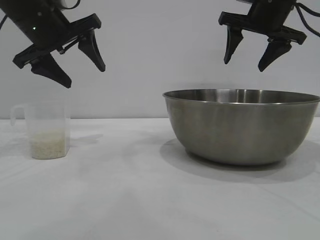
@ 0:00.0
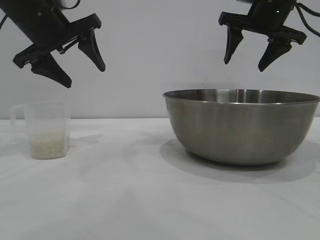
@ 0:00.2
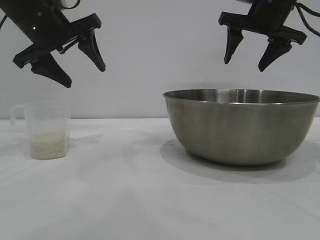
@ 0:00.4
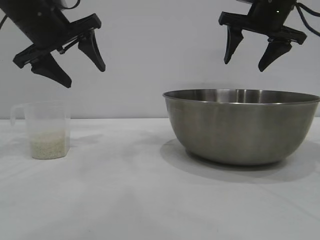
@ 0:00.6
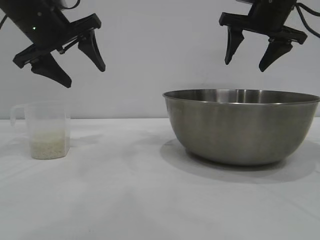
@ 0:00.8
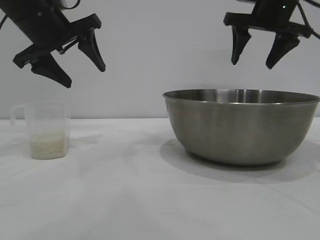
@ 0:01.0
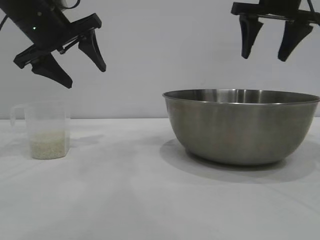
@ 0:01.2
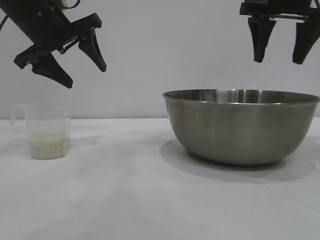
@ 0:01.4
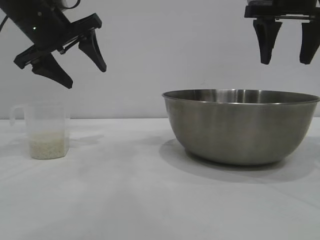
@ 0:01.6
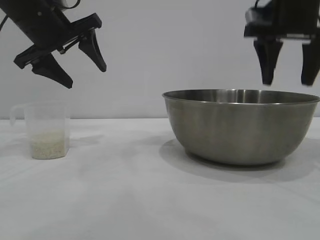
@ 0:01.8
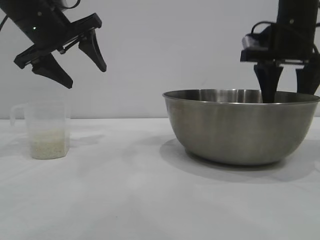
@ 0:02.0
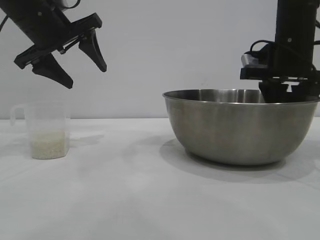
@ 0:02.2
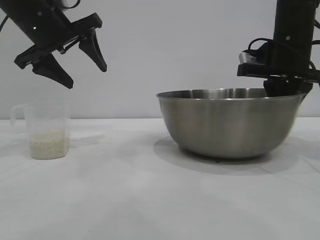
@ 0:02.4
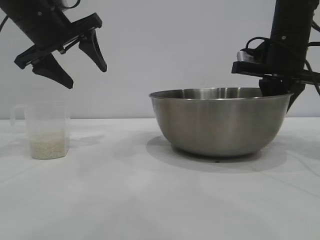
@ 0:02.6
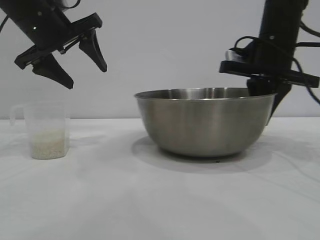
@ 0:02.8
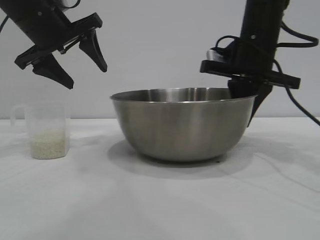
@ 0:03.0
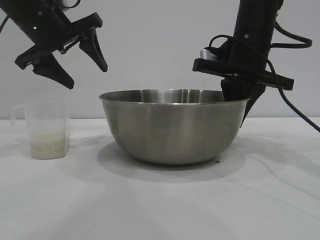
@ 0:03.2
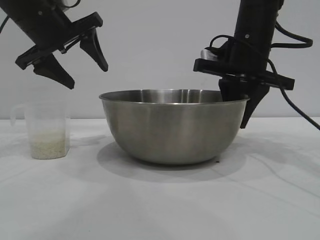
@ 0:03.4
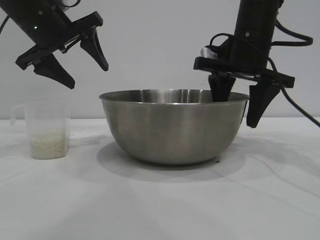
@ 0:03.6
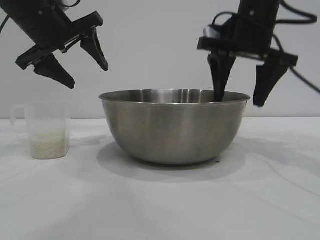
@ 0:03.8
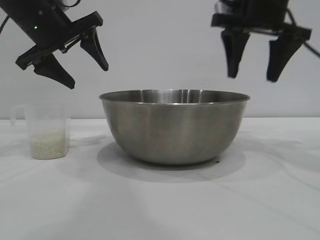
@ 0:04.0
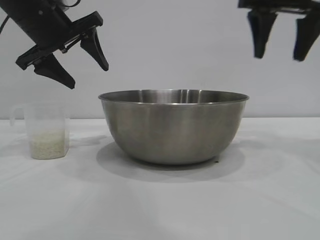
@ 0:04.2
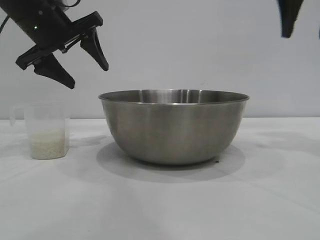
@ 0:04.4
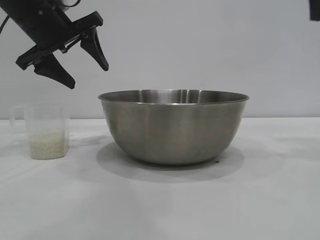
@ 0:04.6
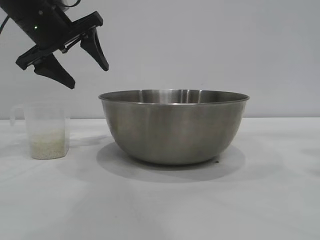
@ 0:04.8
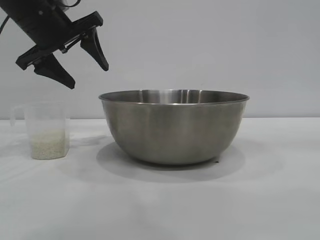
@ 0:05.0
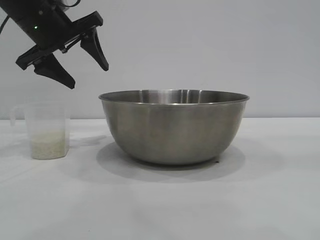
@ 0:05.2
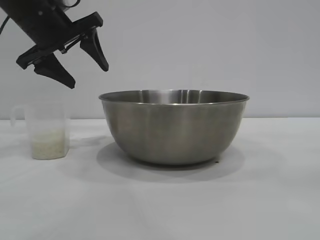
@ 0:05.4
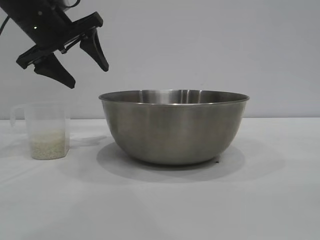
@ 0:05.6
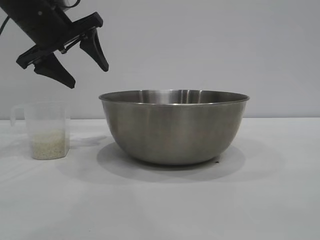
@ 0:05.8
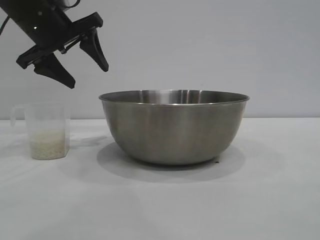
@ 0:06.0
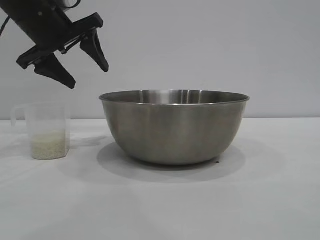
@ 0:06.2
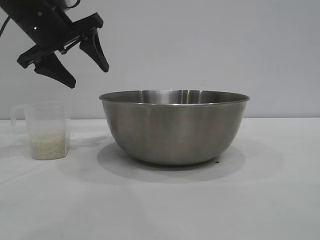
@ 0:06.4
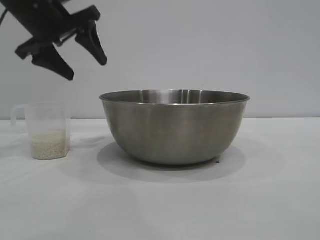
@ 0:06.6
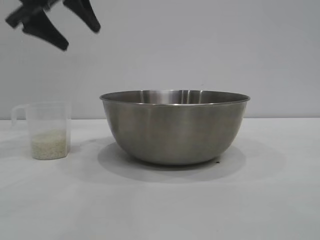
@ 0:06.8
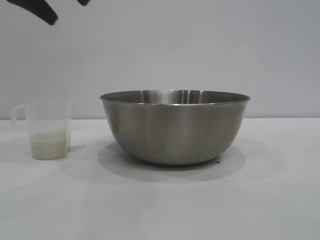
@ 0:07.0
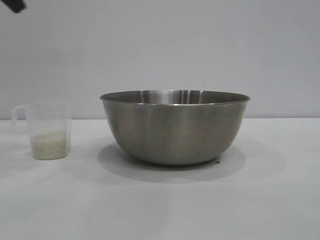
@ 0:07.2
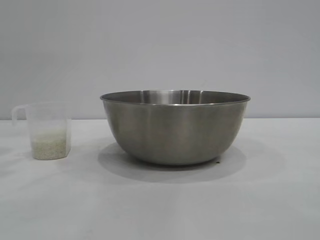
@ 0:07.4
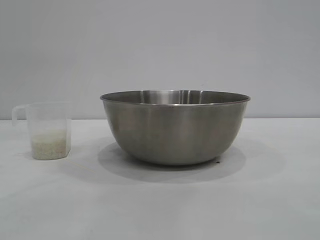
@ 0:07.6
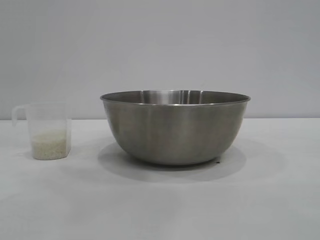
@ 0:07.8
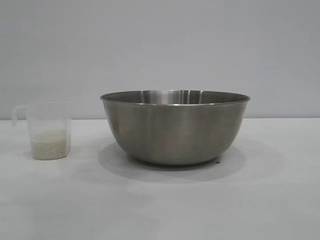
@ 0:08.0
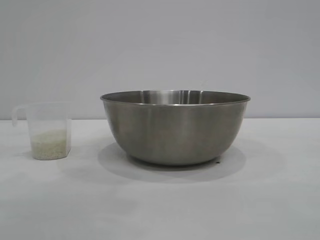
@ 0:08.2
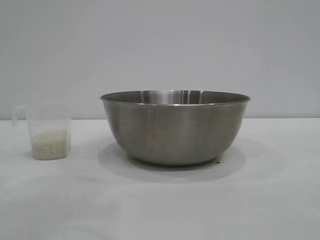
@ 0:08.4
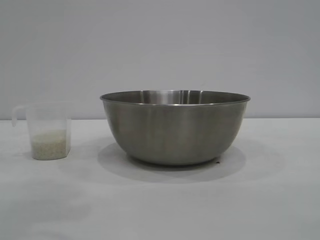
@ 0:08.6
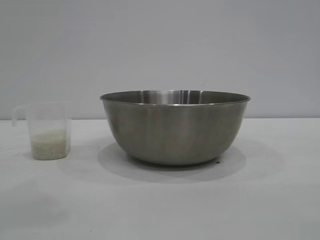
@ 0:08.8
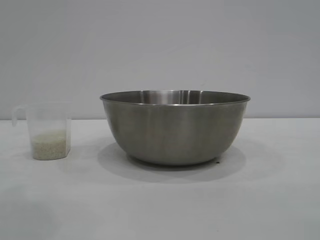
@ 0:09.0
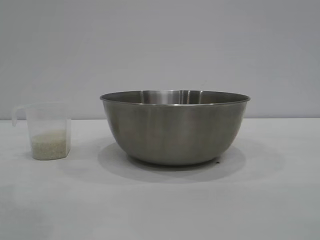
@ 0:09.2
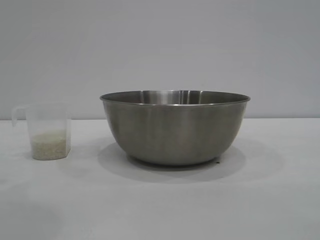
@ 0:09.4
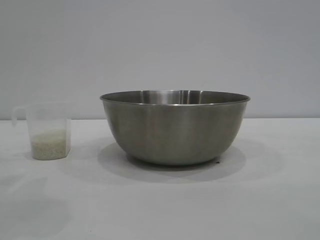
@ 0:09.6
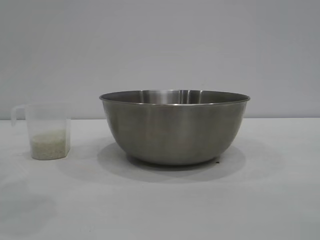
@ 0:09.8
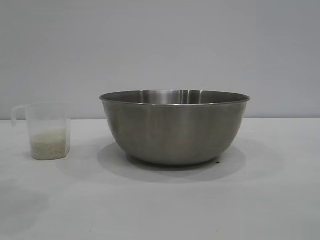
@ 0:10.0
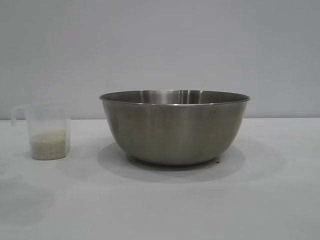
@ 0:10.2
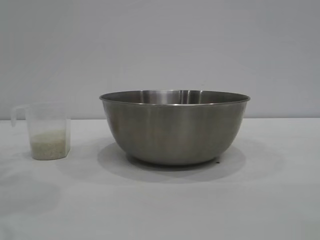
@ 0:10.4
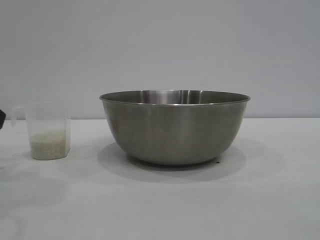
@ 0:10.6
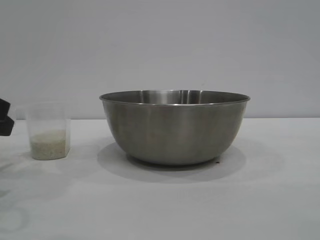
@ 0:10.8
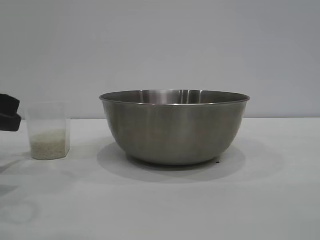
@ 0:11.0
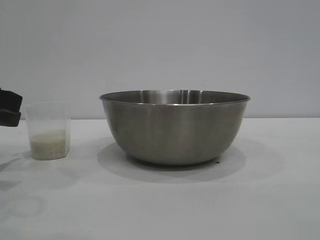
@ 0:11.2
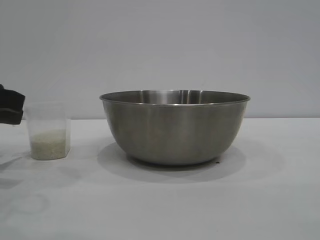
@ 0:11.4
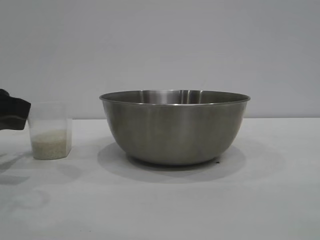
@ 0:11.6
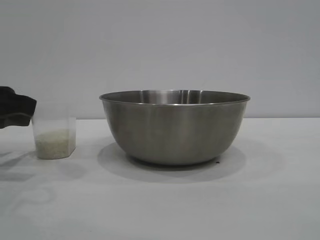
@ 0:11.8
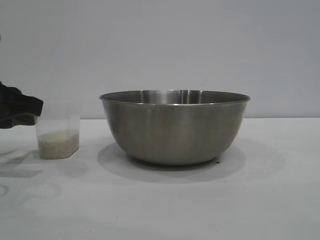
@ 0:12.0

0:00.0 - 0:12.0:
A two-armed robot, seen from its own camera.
Task of the whole recording: the right gripper grasp the rice container and place it in the center of the table, the left gripper grasp the rice scoop and pour the rice into the rice container.
Step, 0:00.0 - 0:03.8: Move the bowl to the center of view with the right gripper.

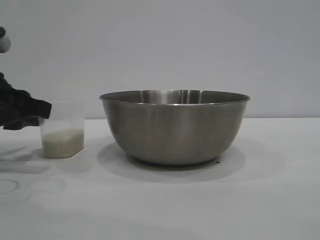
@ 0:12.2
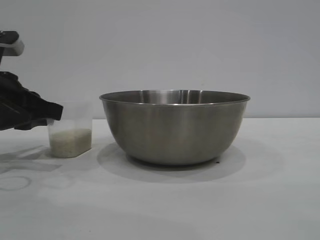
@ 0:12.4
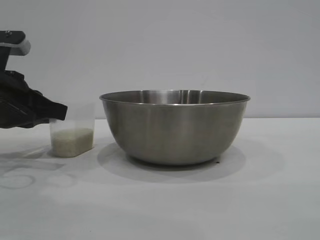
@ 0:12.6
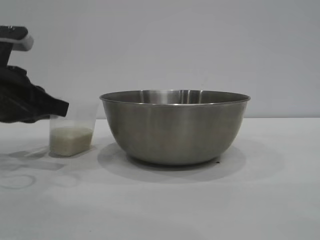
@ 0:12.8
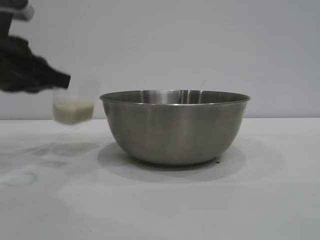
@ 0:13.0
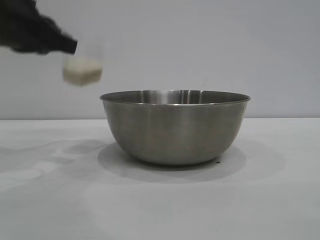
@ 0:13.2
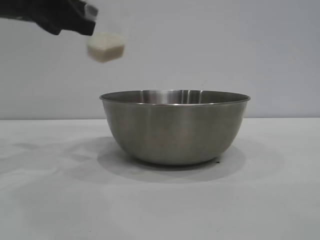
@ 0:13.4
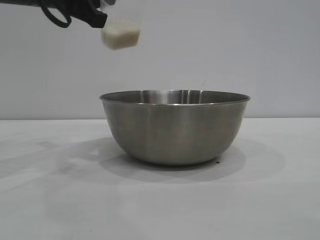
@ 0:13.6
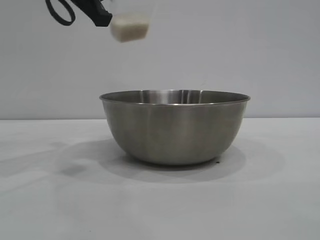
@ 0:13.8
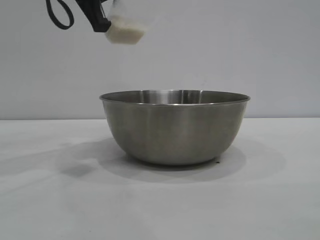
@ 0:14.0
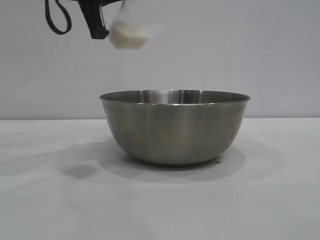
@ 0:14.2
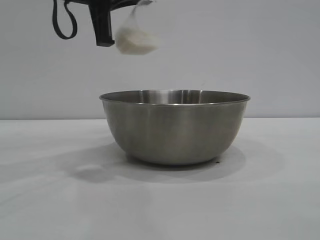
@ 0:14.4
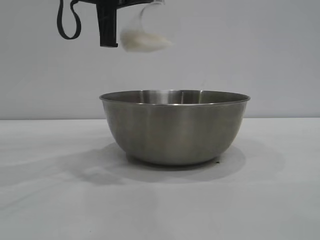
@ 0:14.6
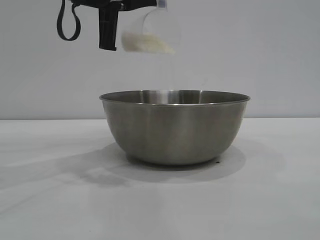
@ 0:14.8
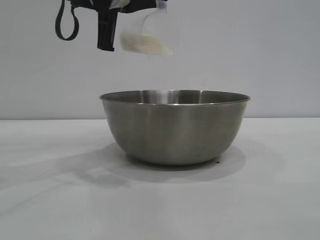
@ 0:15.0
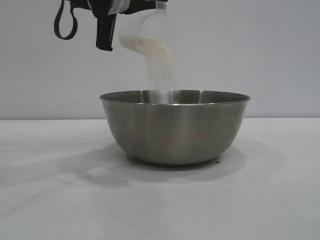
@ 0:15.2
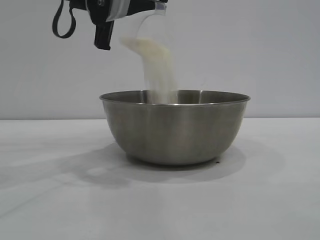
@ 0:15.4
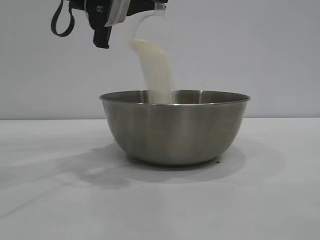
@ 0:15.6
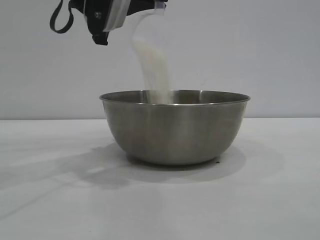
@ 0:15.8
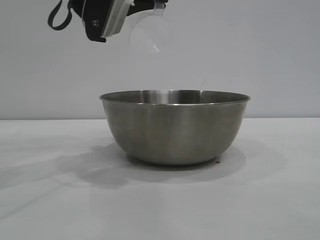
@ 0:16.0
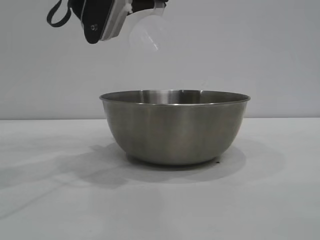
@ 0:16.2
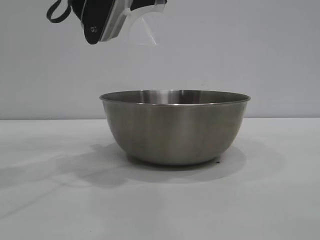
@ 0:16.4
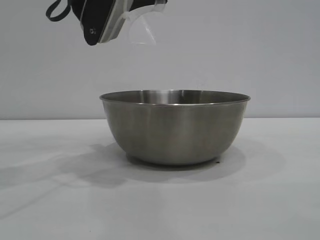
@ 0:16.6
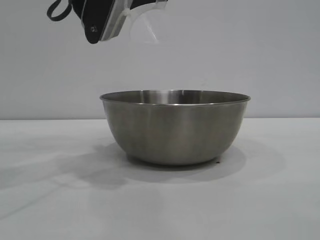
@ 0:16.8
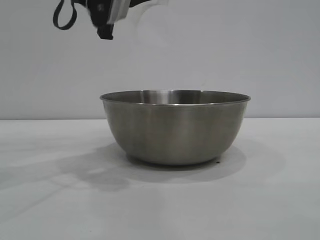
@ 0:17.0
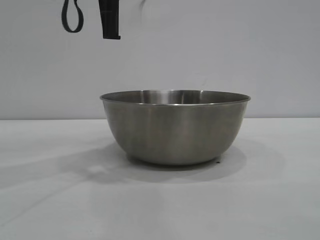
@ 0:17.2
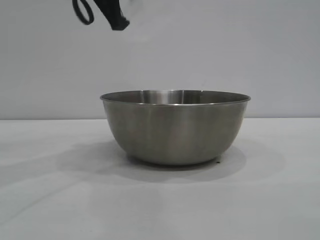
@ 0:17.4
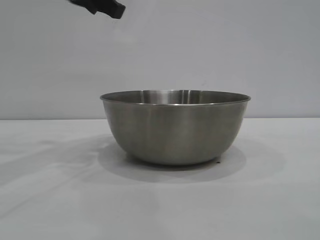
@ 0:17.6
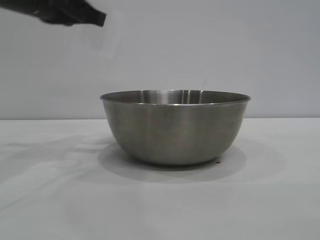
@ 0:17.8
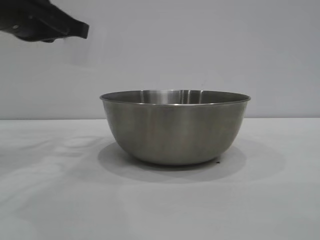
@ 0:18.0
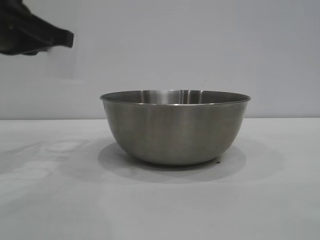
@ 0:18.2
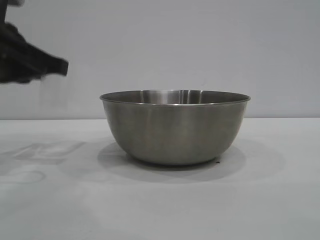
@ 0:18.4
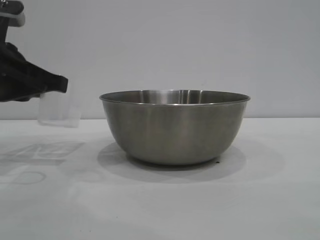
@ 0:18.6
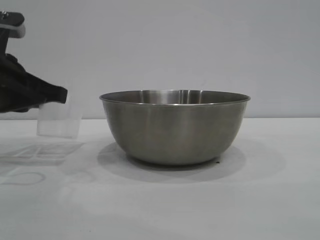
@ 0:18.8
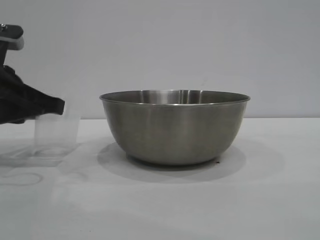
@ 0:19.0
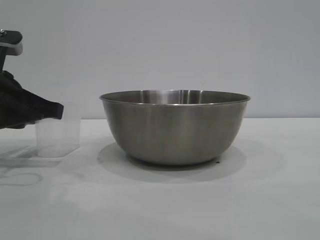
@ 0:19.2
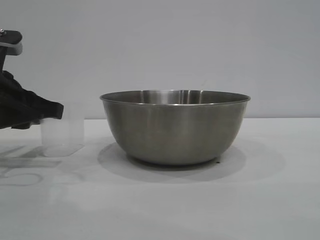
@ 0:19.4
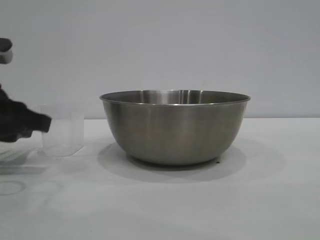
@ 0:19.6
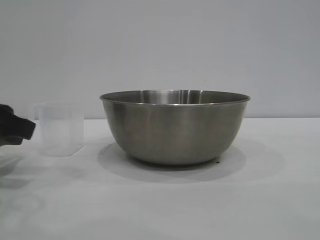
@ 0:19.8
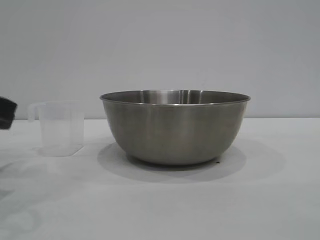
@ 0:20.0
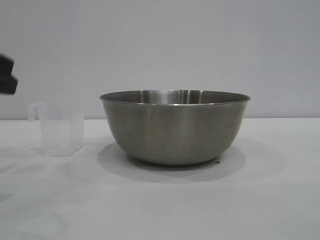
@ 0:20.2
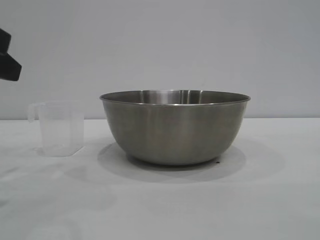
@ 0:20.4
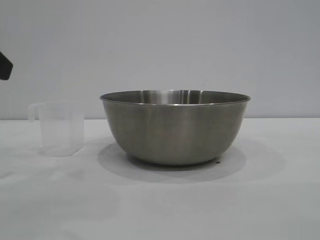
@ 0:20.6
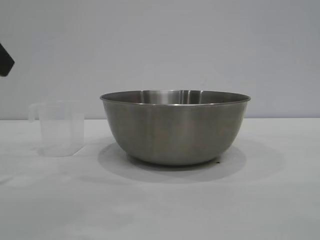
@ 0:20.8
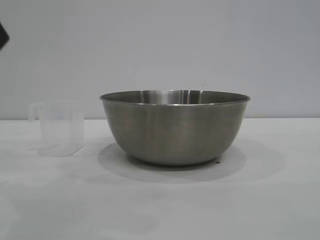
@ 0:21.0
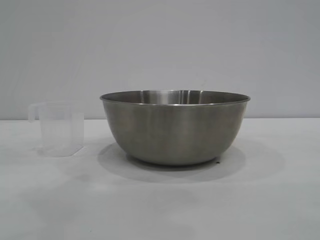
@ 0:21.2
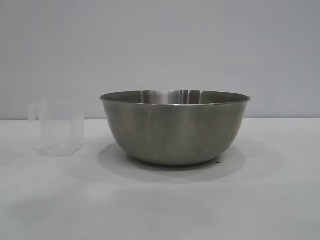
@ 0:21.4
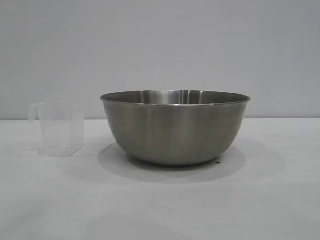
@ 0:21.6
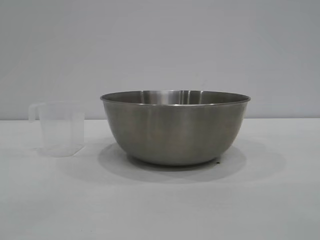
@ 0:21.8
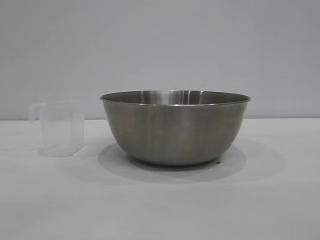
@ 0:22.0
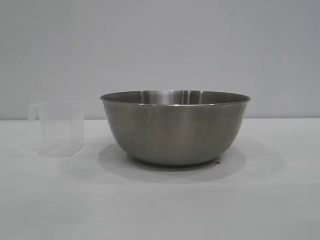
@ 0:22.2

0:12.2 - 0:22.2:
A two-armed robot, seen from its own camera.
Task of the whole recording: the right gripper grasp the rice container and place it in the center of the table, the left gripper grasp the rice scoop and pour the rice into the rice container.
Step, 0:13.2 - 0:16.0: Pour the rice from the cup into the bowl with the left gripper.
Step, 0:16.2 - 0:19.8: Place the cup on the table with the left gripper.
